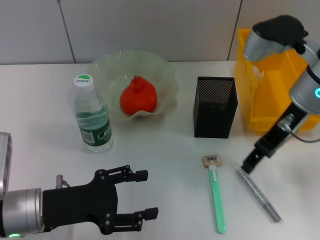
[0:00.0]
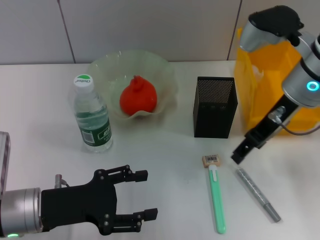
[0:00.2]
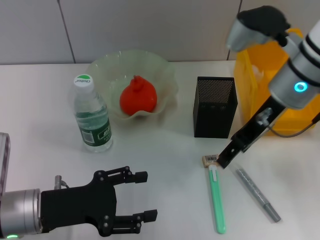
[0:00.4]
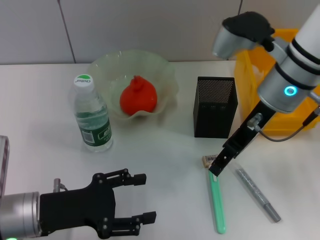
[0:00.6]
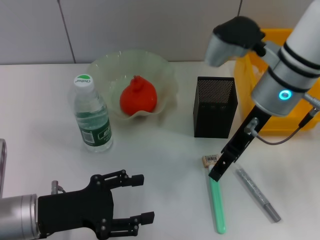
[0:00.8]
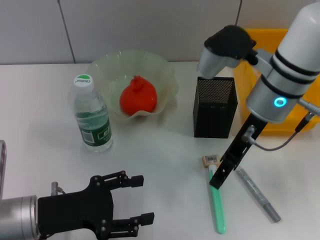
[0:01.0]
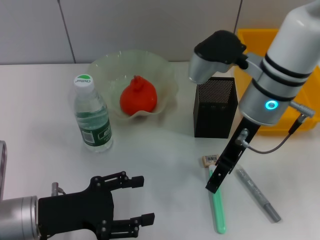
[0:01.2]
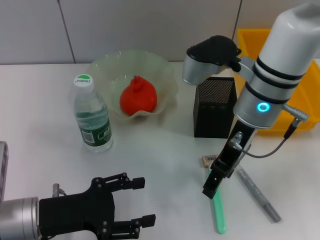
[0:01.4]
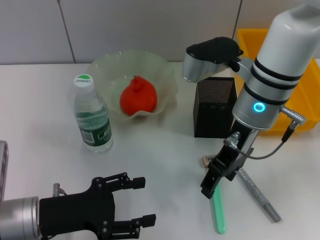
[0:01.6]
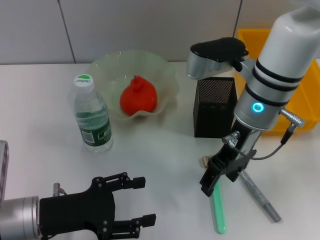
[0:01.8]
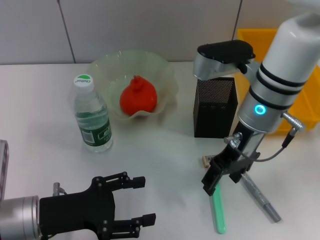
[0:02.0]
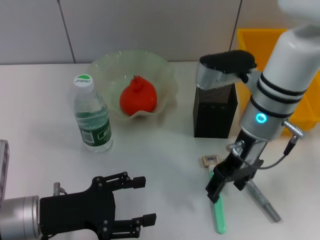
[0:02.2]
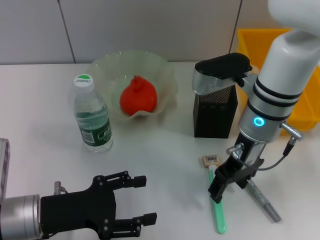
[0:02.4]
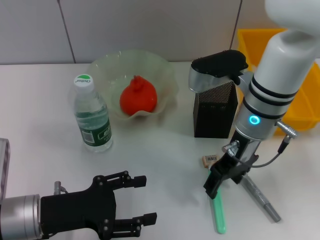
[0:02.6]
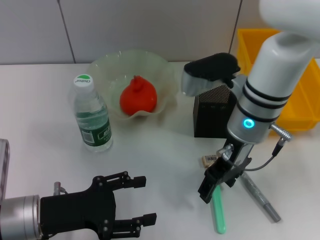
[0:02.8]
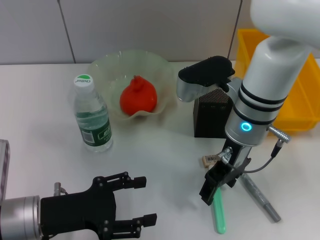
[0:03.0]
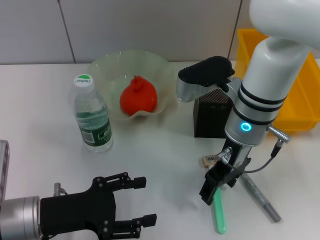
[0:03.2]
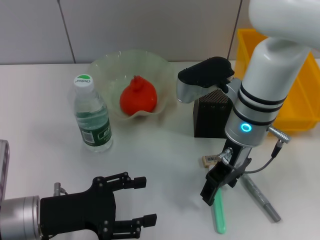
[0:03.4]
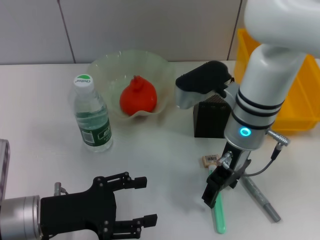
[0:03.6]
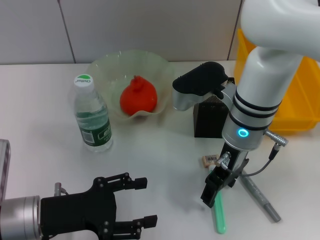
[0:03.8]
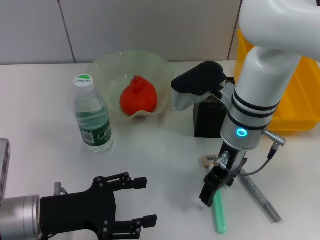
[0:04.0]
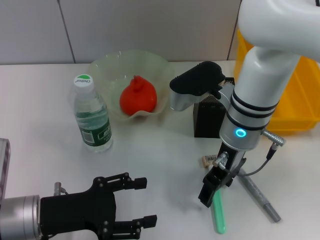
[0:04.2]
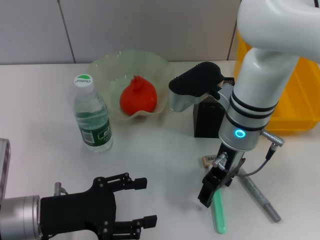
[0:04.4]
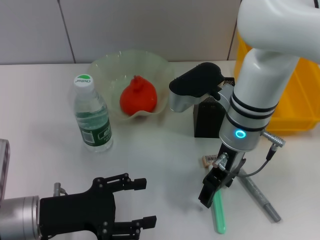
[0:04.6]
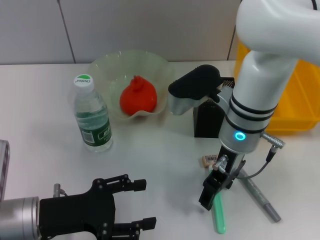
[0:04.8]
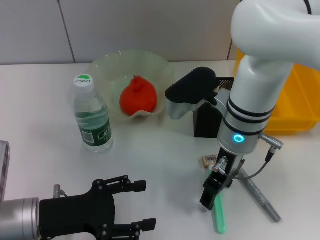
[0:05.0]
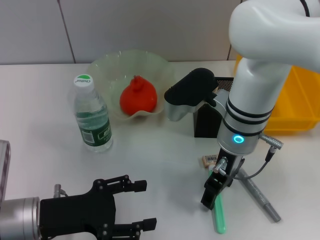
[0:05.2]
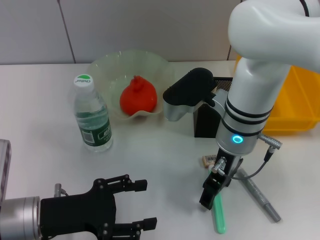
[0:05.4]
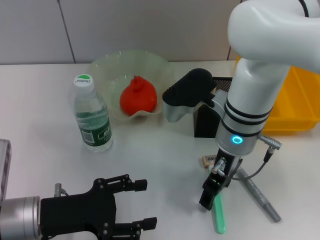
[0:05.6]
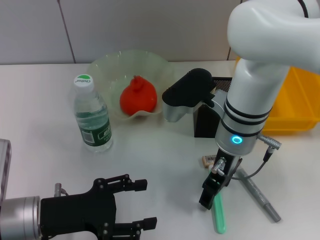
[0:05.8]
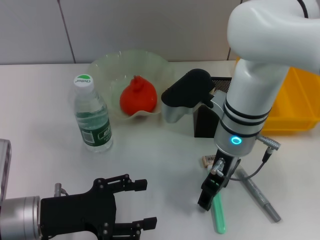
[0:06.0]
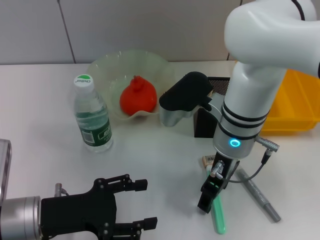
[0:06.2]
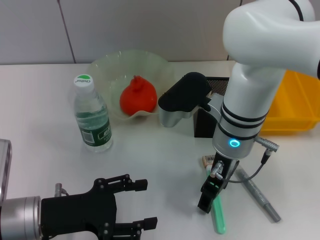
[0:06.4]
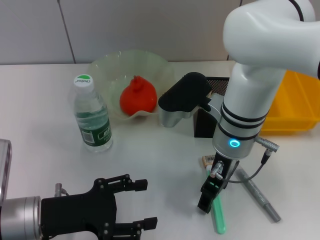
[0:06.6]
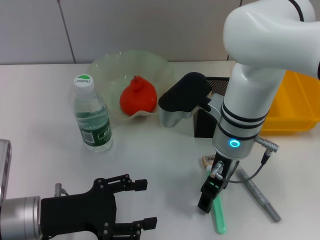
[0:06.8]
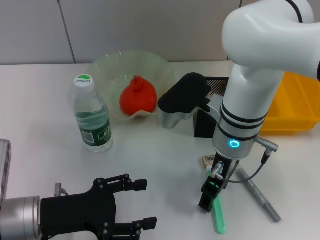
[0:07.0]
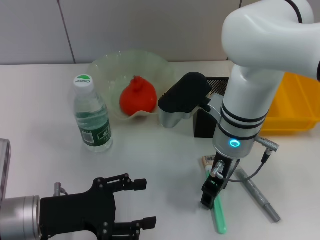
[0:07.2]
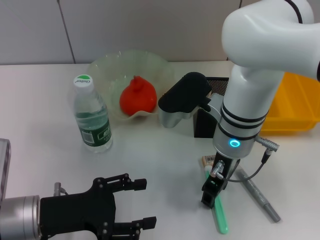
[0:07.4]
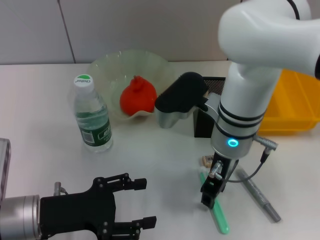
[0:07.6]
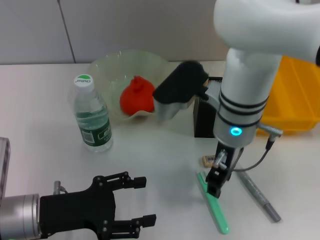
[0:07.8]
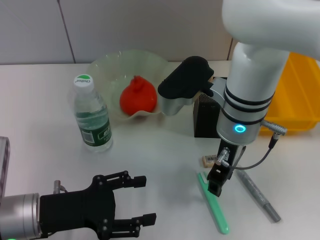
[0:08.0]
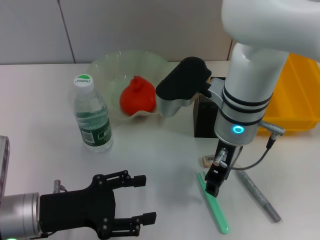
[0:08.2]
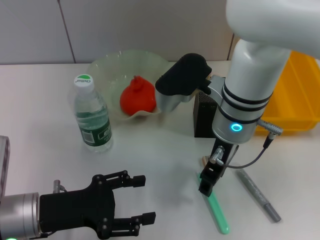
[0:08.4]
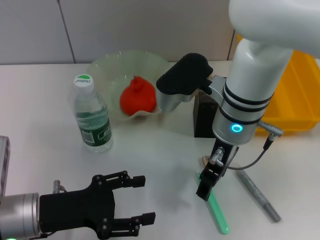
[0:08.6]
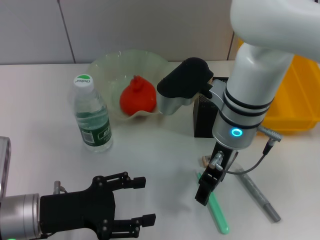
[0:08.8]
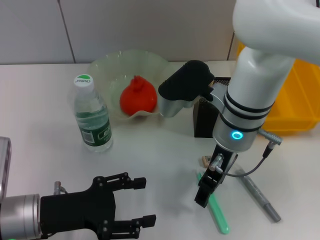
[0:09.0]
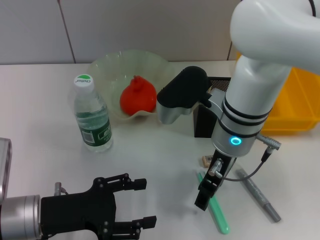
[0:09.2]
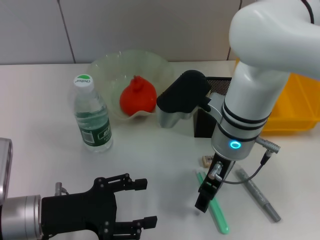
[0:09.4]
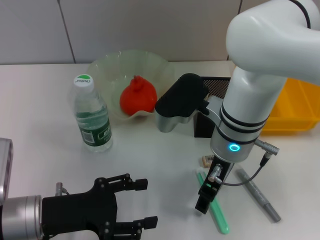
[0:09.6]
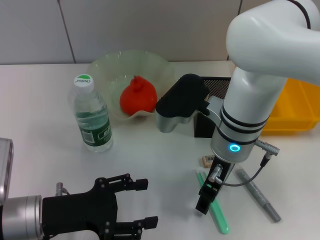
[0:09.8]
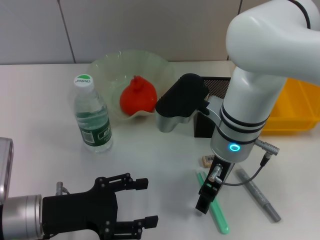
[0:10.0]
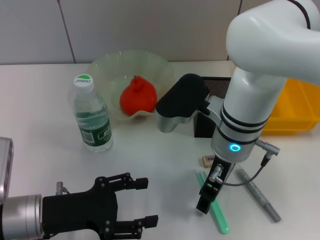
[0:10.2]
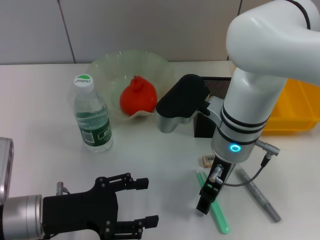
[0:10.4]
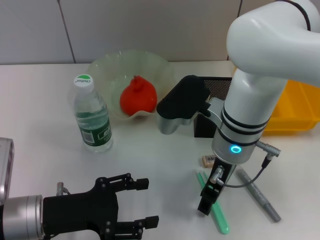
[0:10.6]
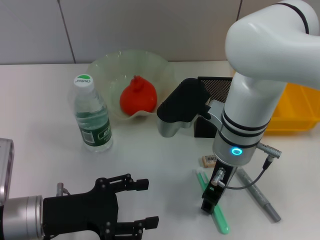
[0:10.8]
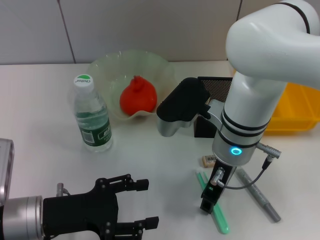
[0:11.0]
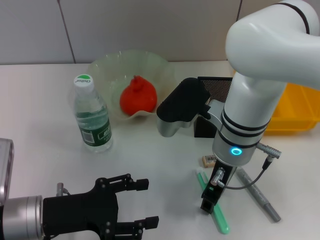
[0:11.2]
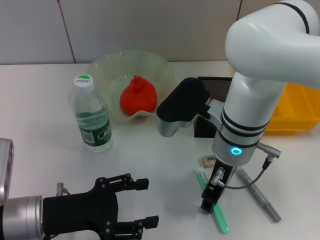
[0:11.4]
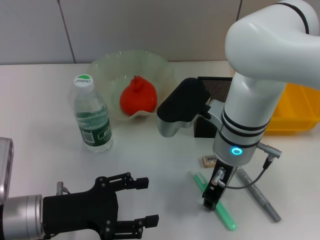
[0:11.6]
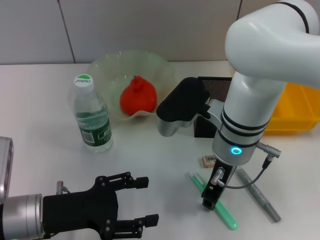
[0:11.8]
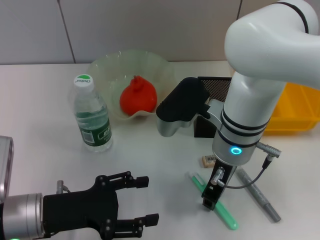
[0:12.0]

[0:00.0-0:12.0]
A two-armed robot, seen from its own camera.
0:00.0 to 0:01.6: The right gripper shifts roughly 10 cm to the left.
0:01.6 to 0:06.0: The grippers stay close to where they were, moving slightly.
0:06.0 to 0:07.6: Both grippers stay about where they are.
0:07.6 to 0:10.4: There are only small adjustments of the grippers.
0:10.4 to 0:12.0: The right gripper closes.

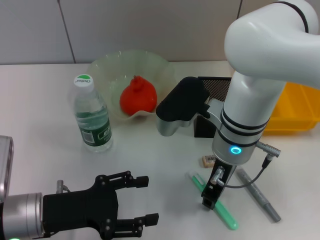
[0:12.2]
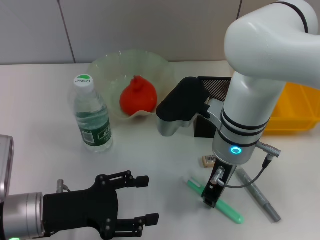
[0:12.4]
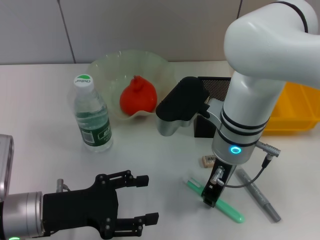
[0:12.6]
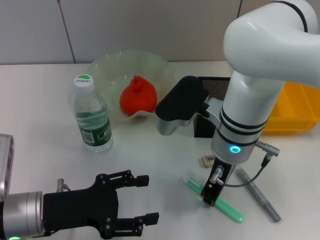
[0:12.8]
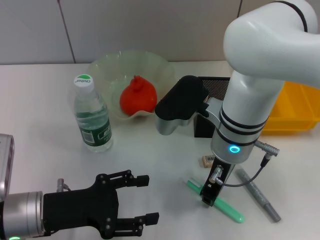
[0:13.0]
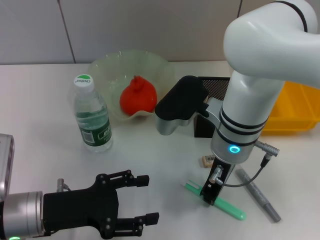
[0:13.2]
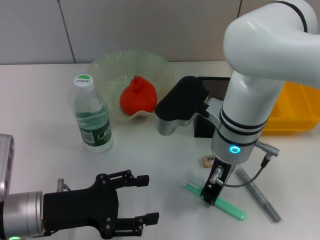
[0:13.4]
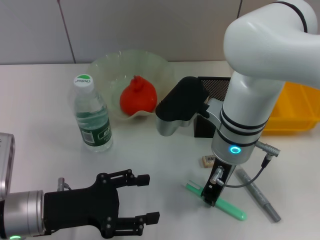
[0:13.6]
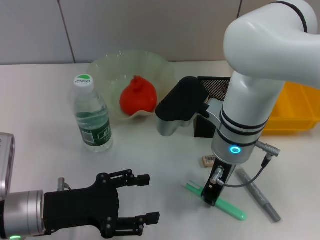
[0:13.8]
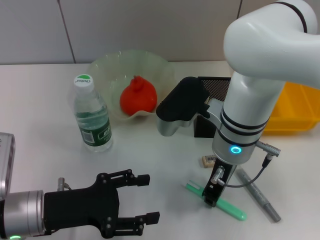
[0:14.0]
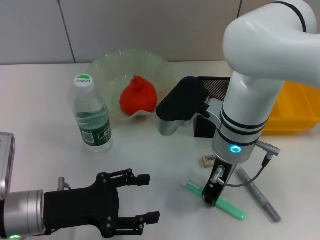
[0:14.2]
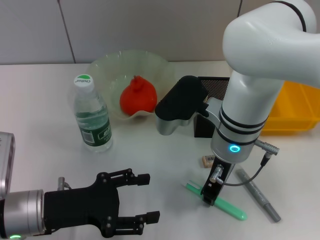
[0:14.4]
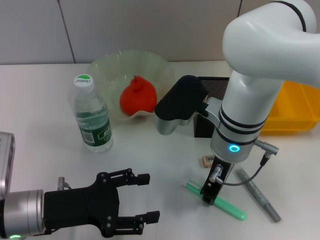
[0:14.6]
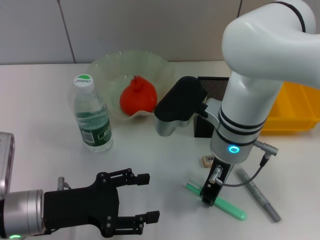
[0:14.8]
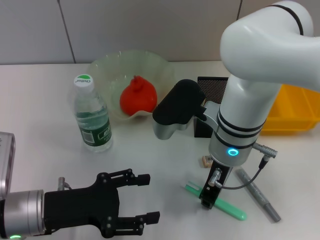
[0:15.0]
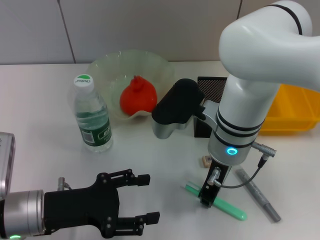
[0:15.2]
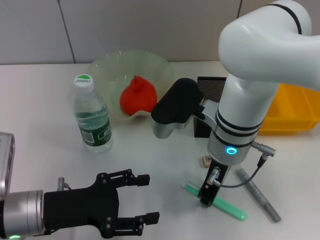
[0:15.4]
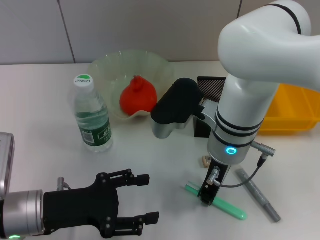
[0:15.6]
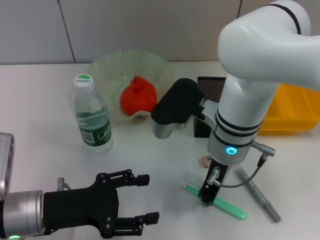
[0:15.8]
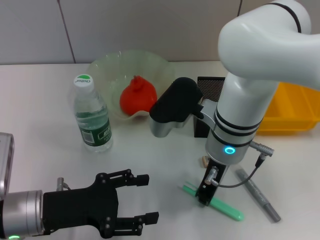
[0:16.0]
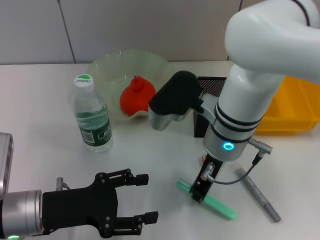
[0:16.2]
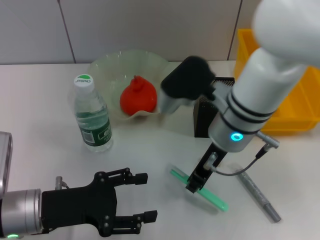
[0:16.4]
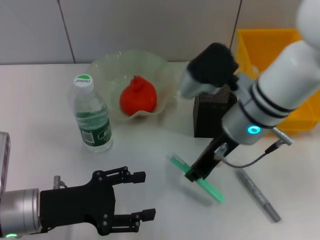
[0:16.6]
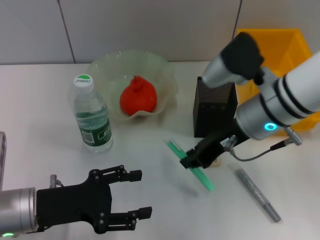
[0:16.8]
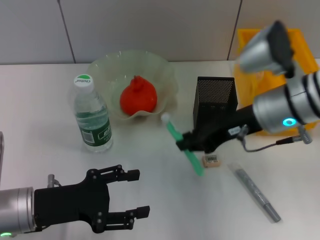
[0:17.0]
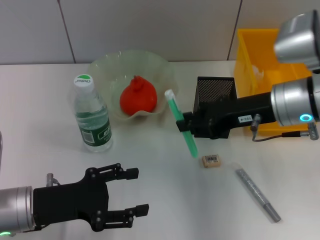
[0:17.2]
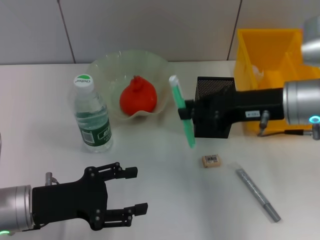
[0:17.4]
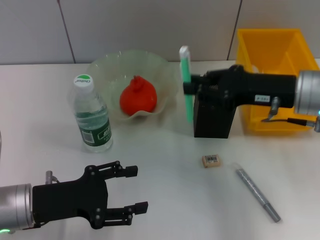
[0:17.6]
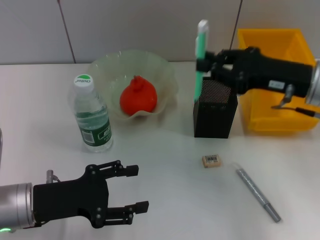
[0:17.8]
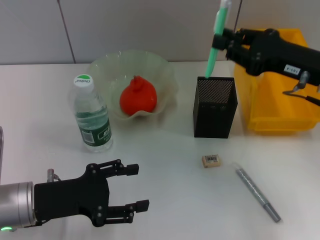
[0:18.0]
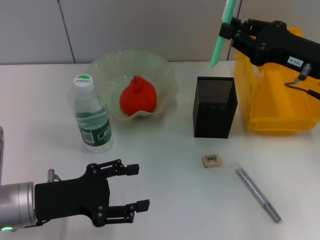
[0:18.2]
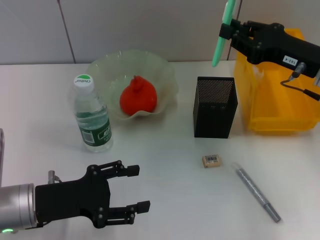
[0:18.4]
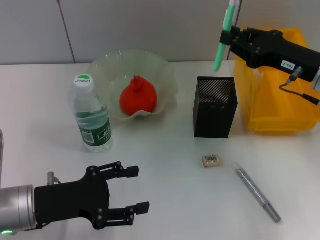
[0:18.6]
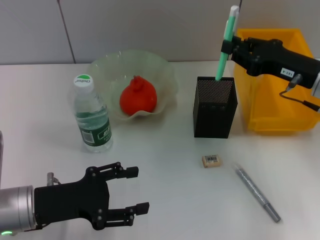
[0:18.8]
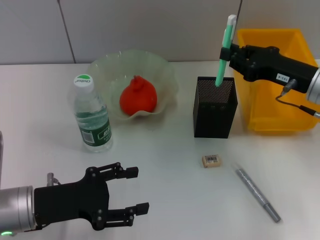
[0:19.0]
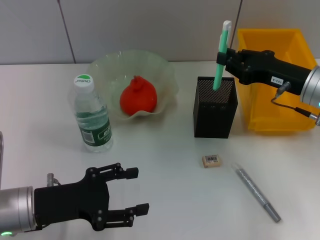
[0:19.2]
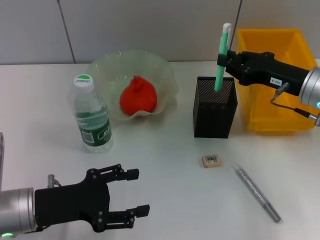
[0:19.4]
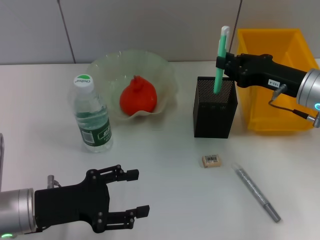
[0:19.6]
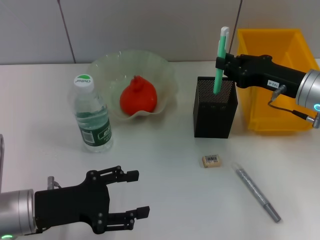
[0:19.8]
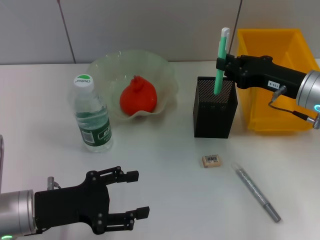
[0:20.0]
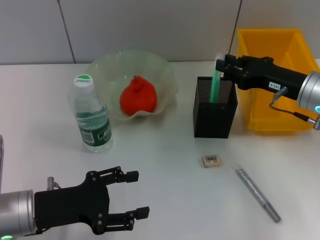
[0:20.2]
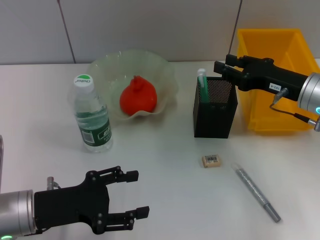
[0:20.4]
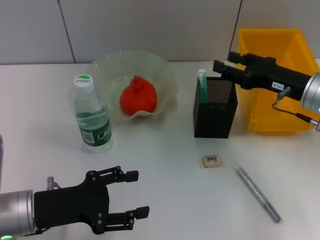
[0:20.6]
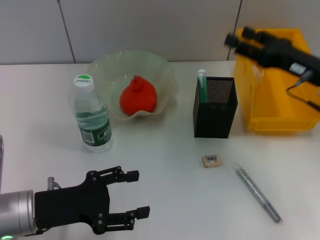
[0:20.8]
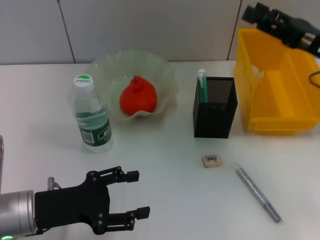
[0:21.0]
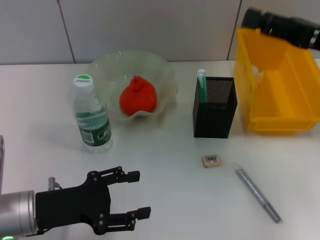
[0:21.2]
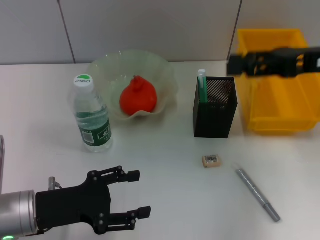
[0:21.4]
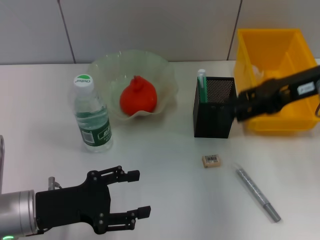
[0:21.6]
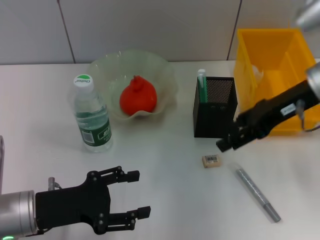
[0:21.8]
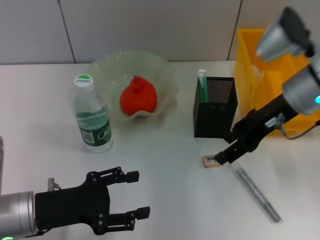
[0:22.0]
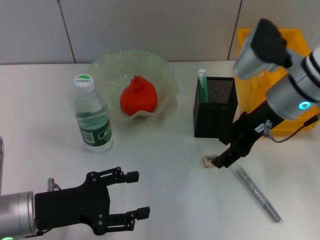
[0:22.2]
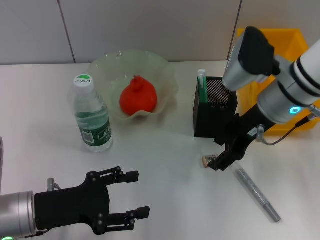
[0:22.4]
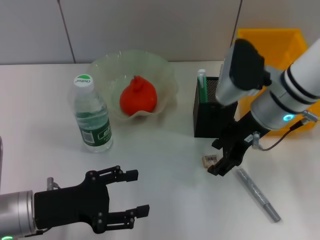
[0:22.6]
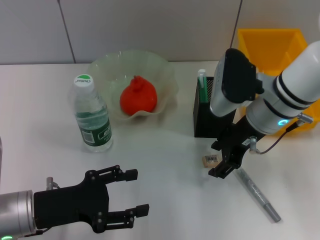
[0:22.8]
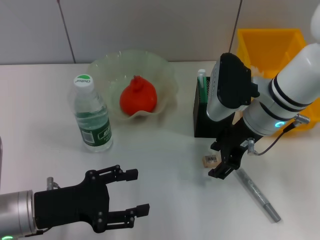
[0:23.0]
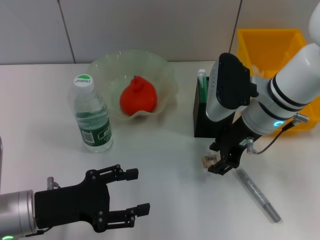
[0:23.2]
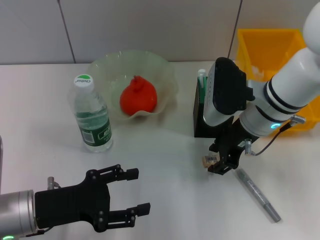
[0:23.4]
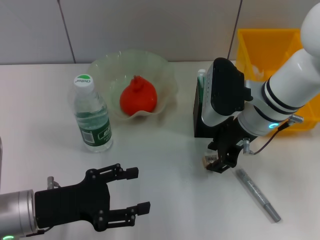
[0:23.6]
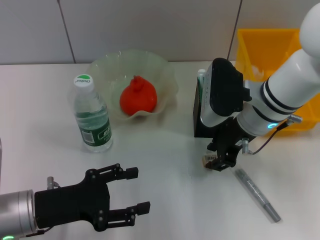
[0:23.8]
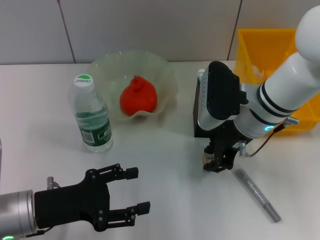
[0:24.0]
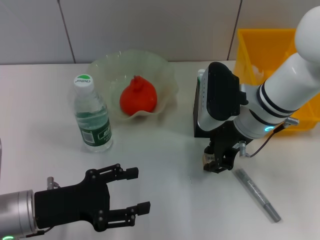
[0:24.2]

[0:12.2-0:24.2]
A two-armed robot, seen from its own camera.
Step, 0:12.2 to 0:15.6: Grab the blue utility knife with the right hand.
Step, 0:16.0 to 0:20.4: Place the blue utility knife into the pen holder with the right hand.
0:12.2 to 0:15.2: Both grippers stay put.
0:16.6 to 0:18.2: The right gripper heads to the right, covering about 15 cm.
0:18.2 to 0:19.8: The right gripper shifts roughly 5 cm downward.
0:19.8 to 0:21.2: The right gripper shifts roughly 10 cm upward, and opens up.
0:21.2 to 0:22.6: The right gripper is displaced to the left and downward by some 15 cm.
0:22.6 to 0:24.2: The right gripper closes up.
